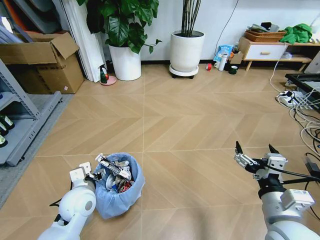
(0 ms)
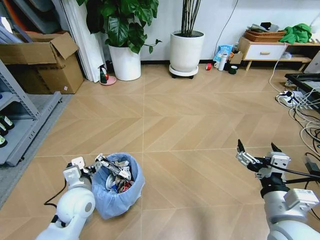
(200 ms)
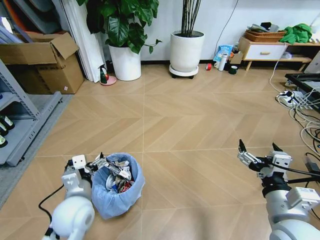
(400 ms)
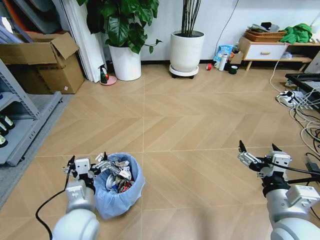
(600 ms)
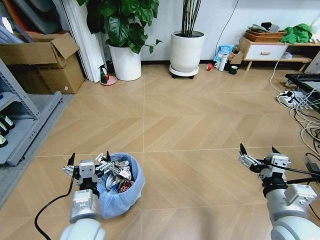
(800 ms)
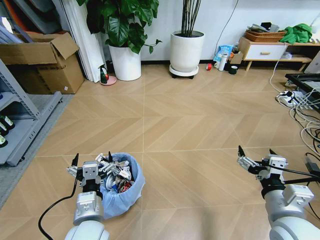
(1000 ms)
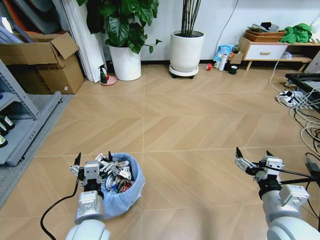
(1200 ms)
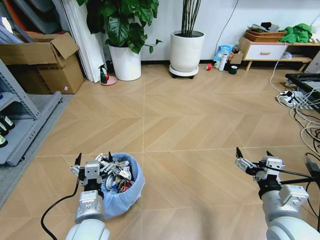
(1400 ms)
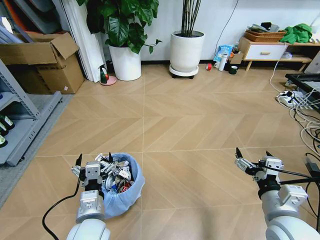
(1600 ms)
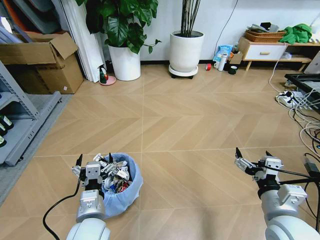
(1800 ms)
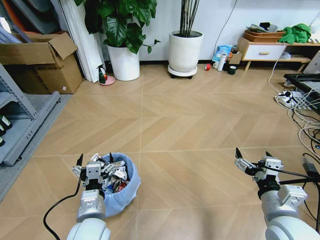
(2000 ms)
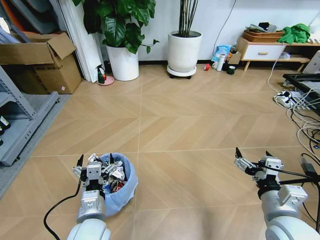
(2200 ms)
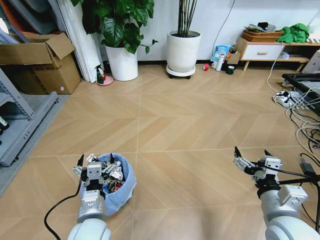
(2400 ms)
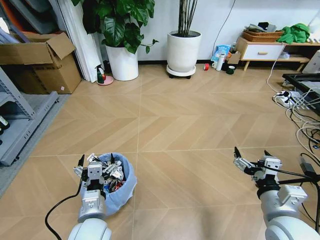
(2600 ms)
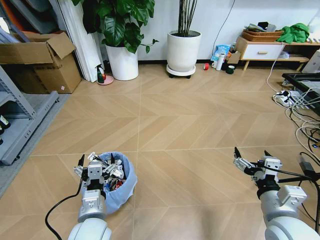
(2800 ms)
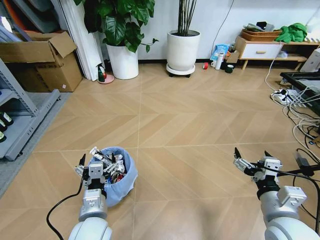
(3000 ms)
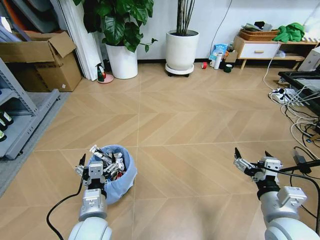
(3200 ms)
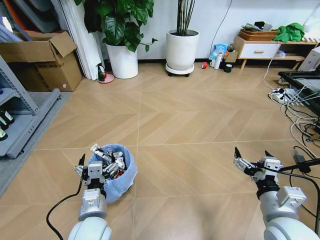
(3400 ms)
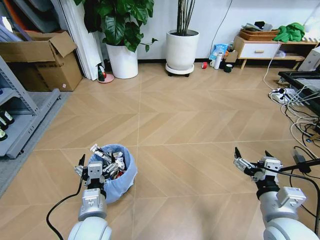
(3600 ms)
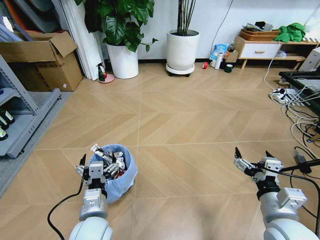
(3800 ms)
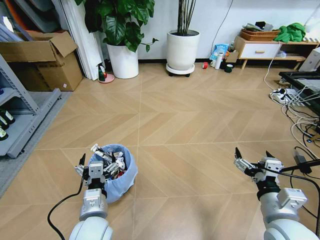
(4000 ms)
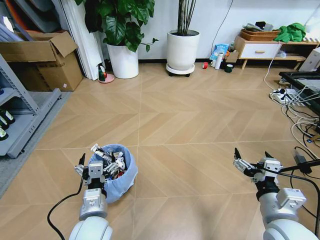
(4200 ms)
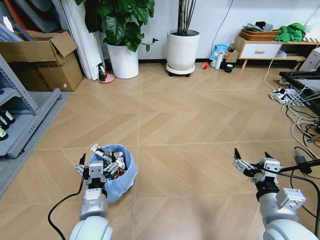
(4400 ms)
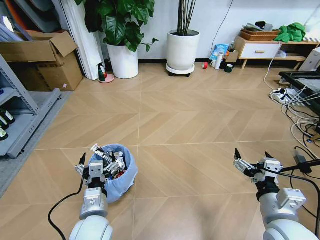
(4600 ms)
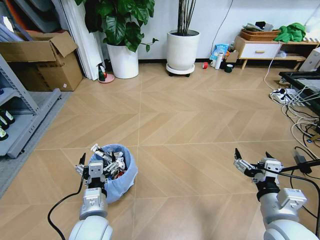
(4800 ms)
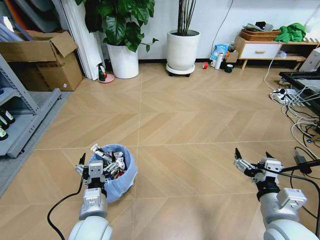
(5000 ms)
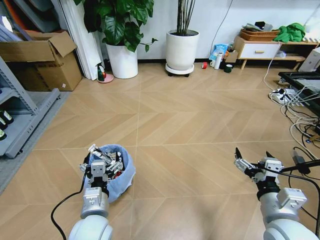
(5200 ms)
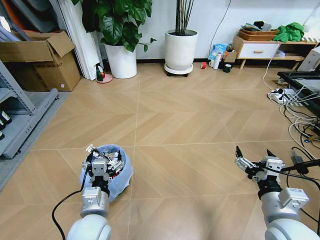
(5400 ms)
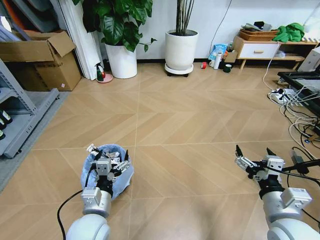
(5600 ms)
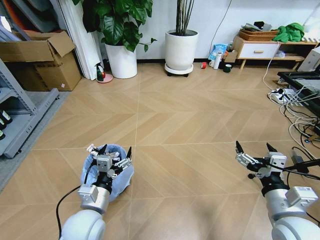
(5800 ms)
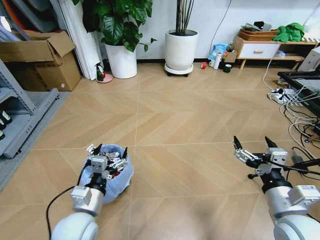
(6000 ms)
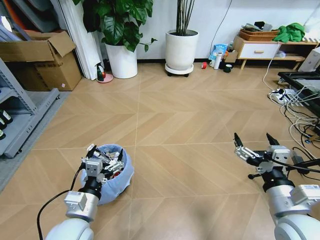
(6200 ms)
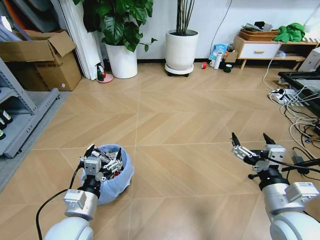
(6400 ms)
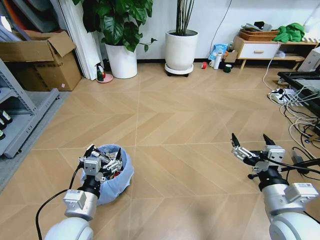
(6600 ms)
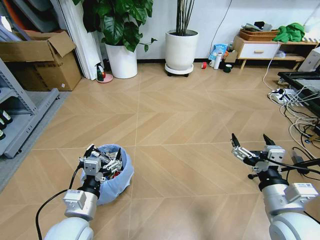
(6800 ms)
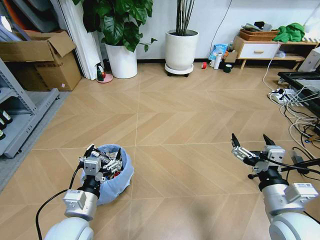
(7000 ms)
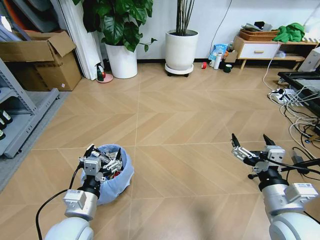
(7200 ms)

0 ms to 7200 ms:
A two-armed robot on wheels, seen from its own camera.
Task of the whole recording: Pick up the trash bin and place the garbage on the floor into it.
0 ms to 1400 ms: The left gripper shifts roughly 10 cm backward and to the right.
2800 ms to 4400 ms: Both grippers stay put.
5800 ms to 7200 ms: There are only small adjustments of the grippers.
